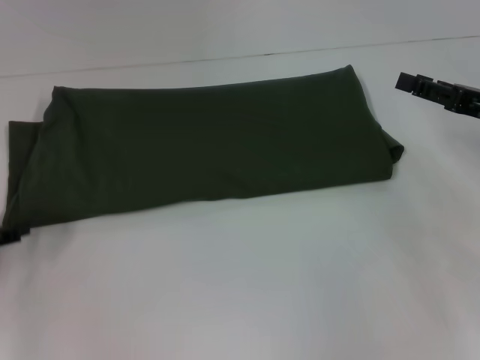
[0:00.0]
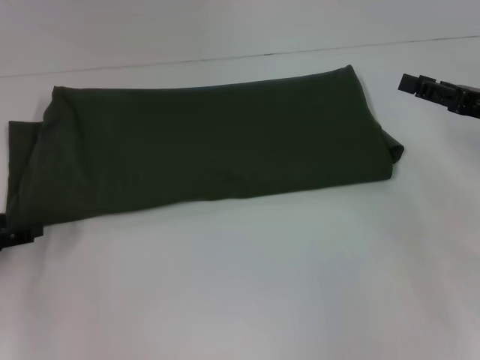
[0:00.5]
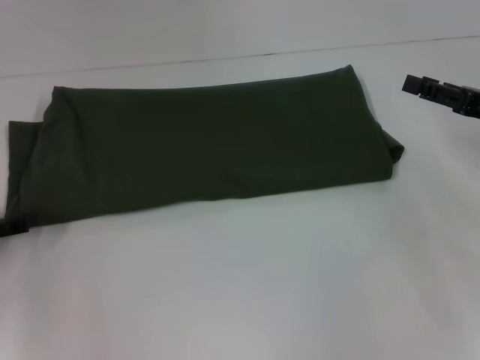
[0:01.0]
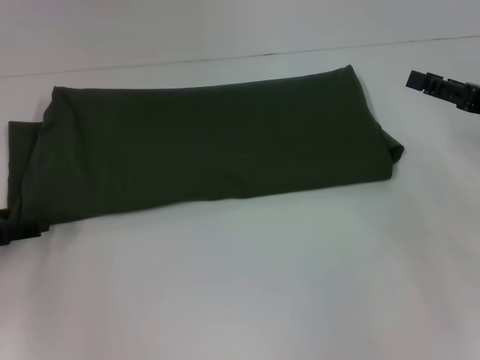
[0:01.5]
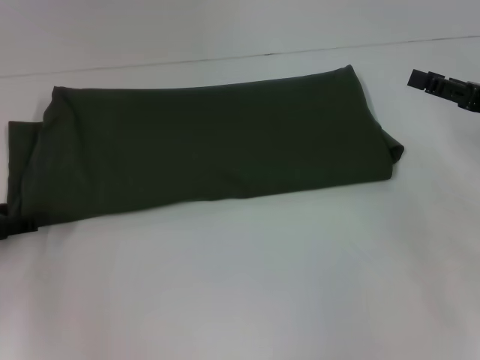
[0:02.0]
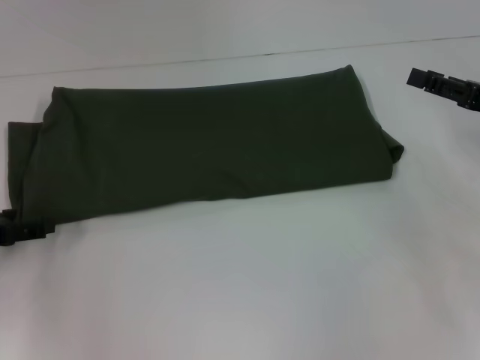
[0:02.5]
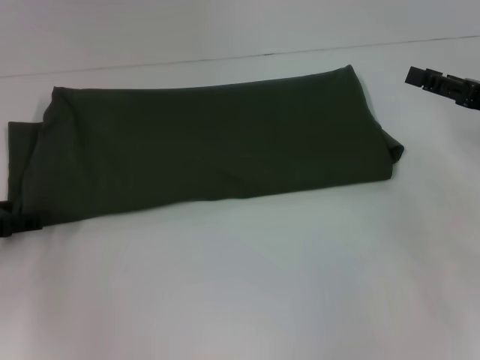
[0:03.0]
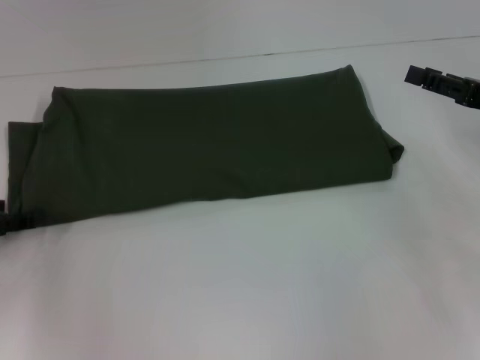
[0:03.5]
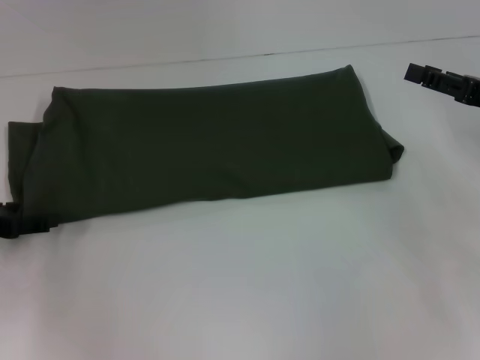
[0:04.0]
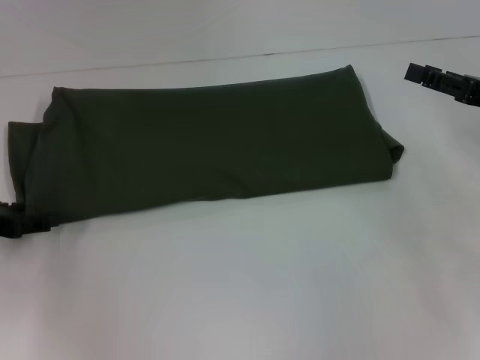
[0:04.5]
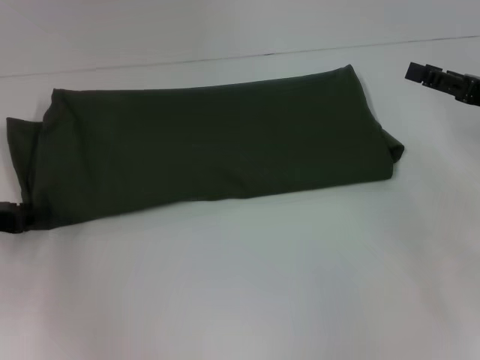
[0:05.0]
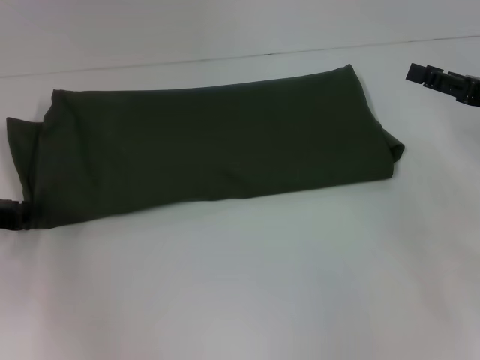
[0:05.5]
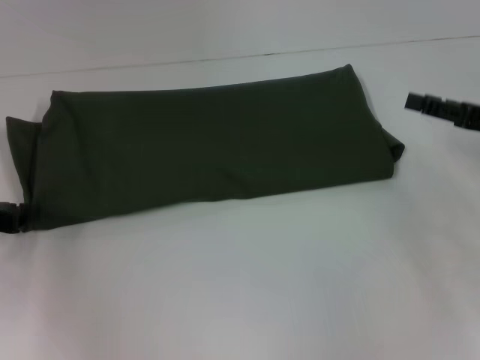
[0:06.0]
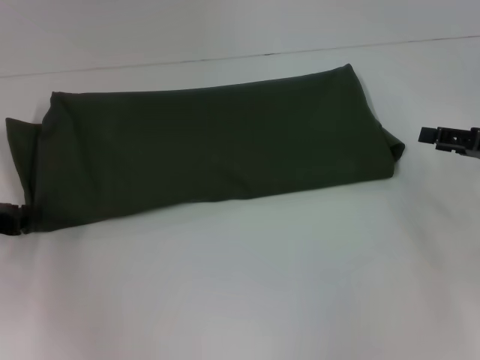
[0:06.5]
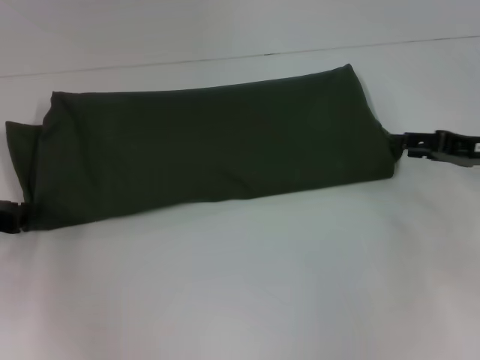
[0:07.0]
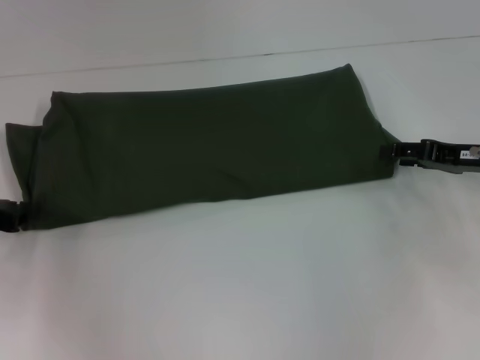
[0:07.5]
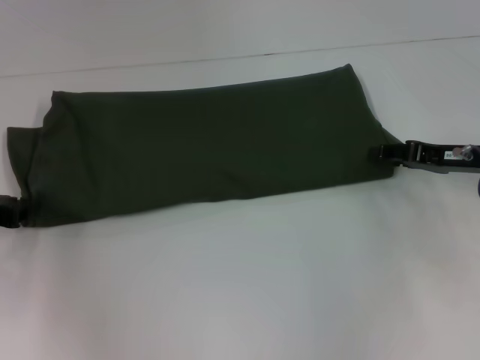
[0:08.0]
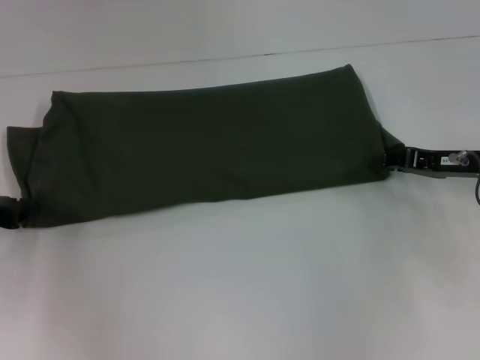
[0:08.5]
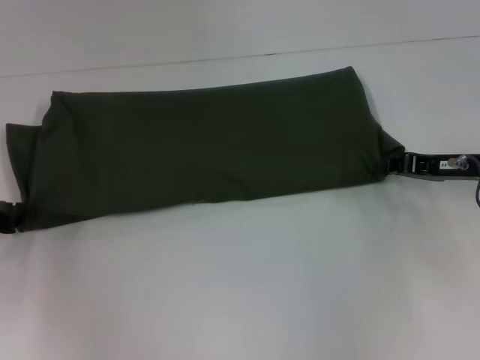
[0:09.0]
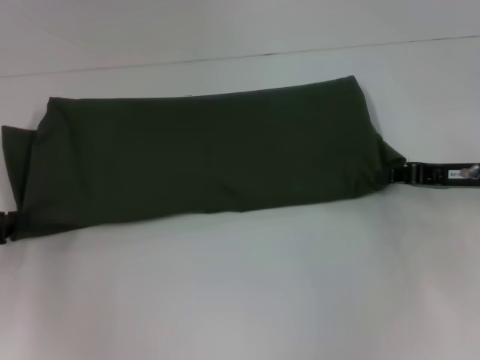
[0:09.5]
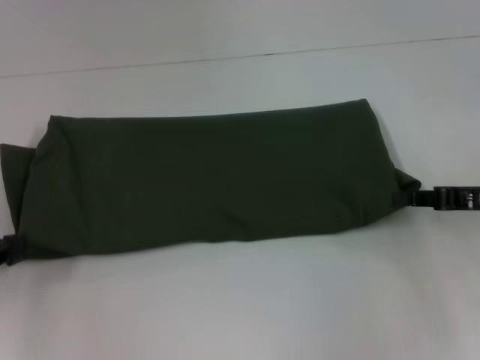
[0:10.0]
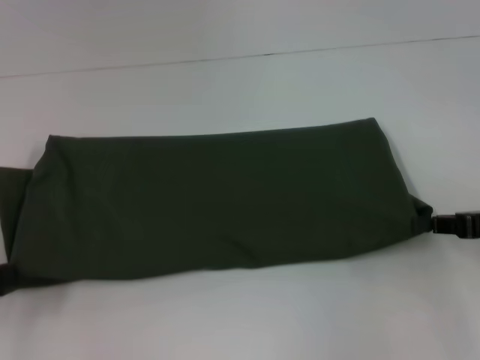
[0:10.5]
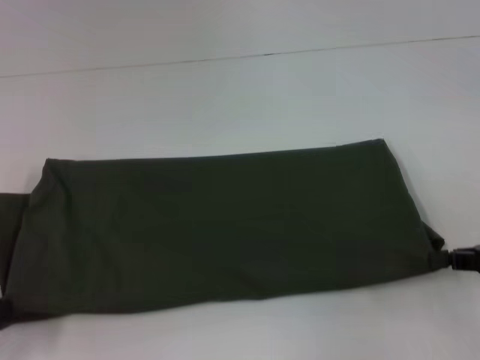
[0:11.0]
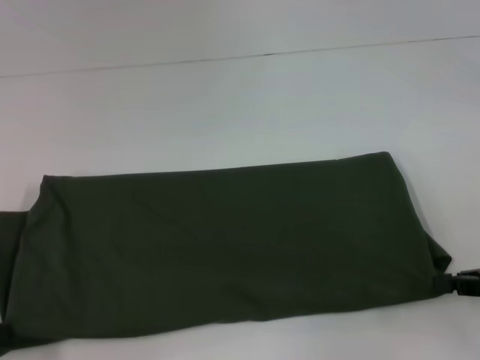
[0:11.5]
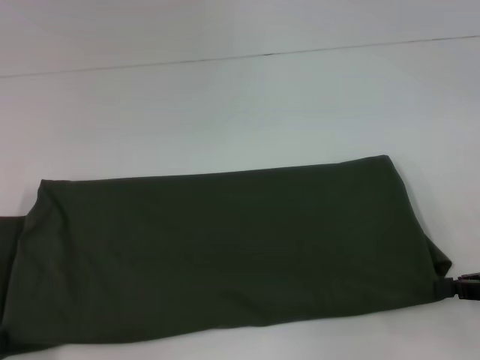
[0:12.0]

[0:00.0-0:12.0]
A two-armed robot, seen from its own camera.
0:00.0 to 0:02.0: The grippers stay close to where they were, moving slightly.
0:02.0 to 0:04.0: Neither gripper changes place.
0:04.0 to 0:06.0: The left gripper closes.
0:06.0 to 0:08.0: The right gripper ends up roughly 5 cm from where it was.
0:08.0 to 0:10.0: Both grippers move backward, approximately 5 cm. The right gripper closes.
0:10.0 to 0:12.0: The grippers both shift backward by roughly 10 cm.

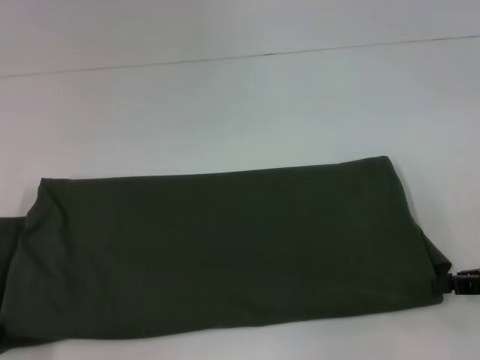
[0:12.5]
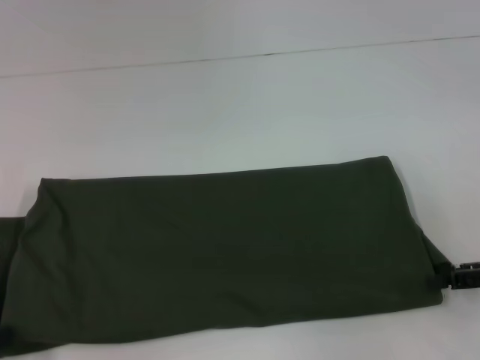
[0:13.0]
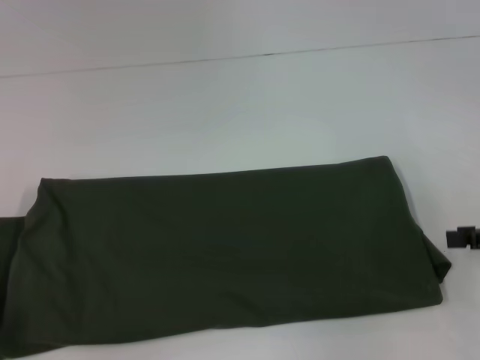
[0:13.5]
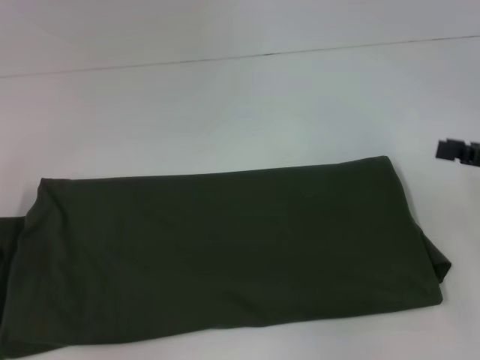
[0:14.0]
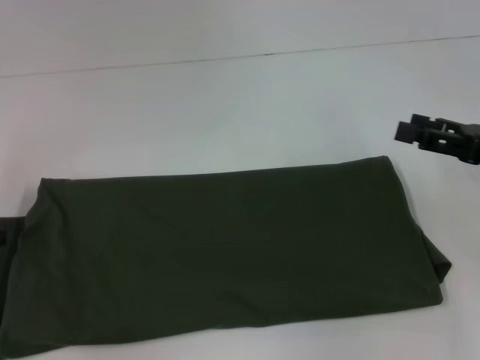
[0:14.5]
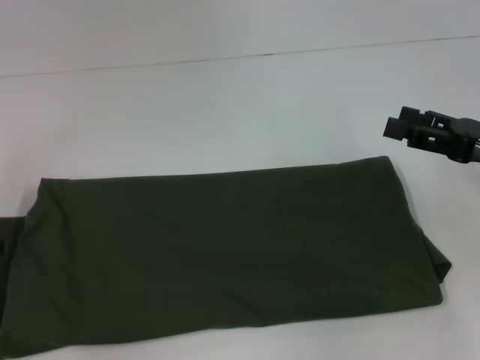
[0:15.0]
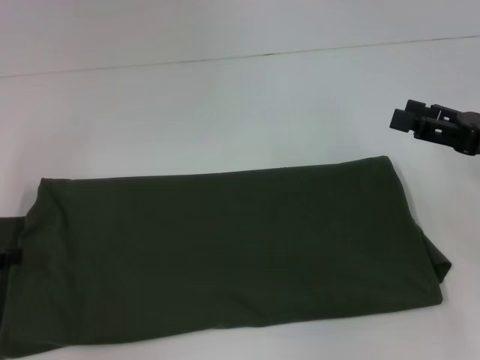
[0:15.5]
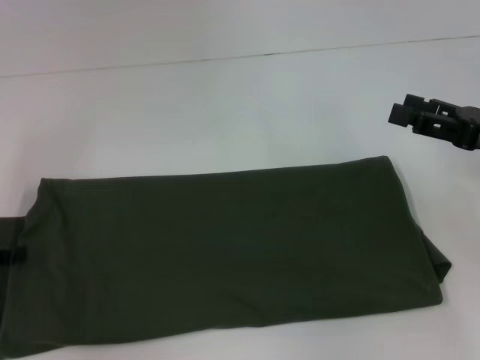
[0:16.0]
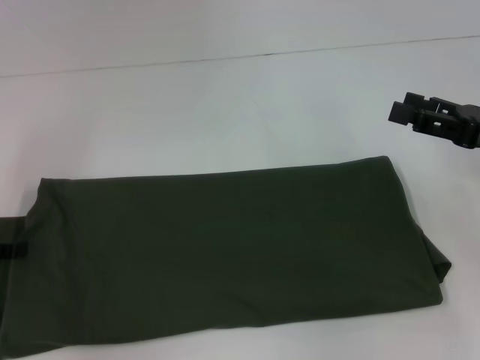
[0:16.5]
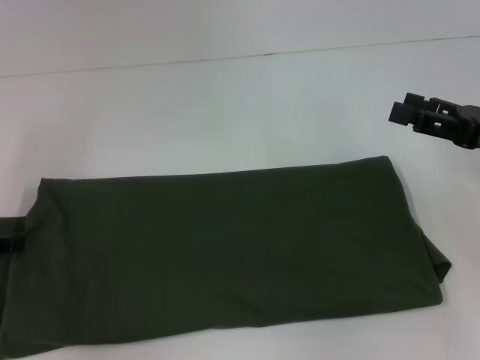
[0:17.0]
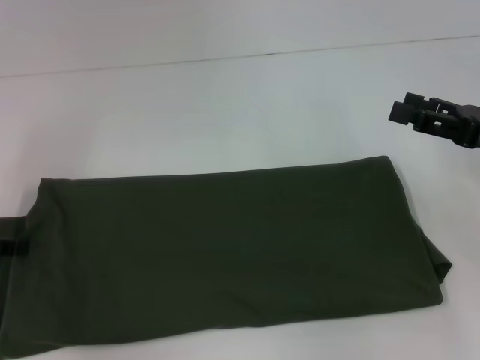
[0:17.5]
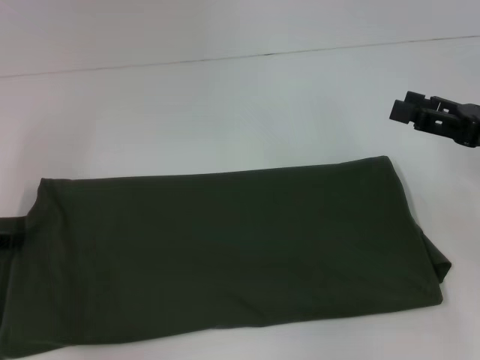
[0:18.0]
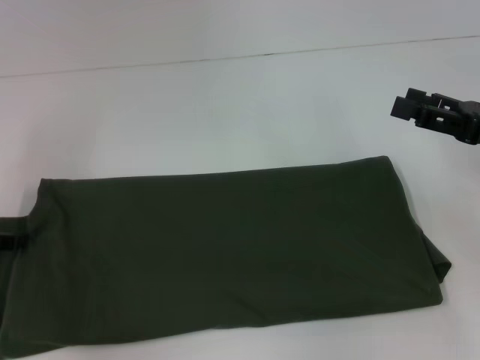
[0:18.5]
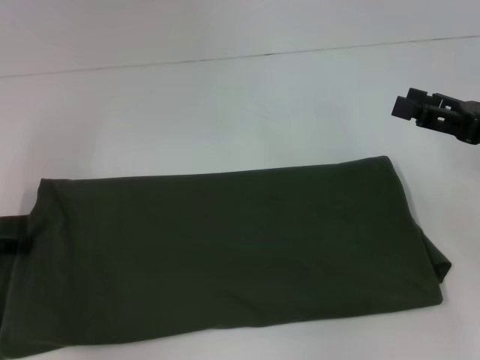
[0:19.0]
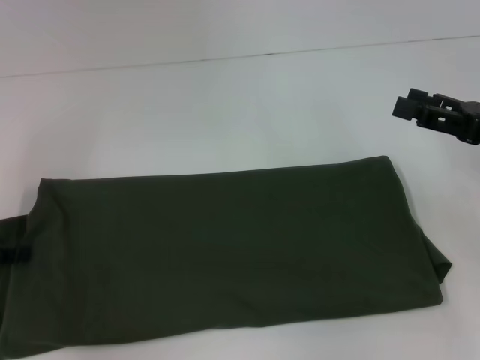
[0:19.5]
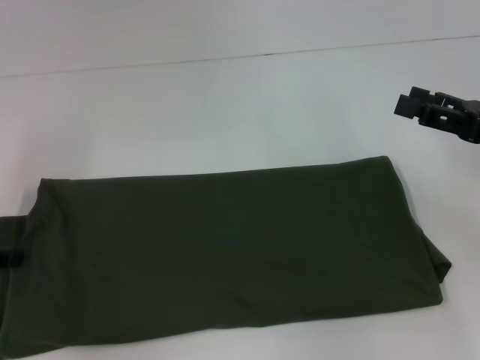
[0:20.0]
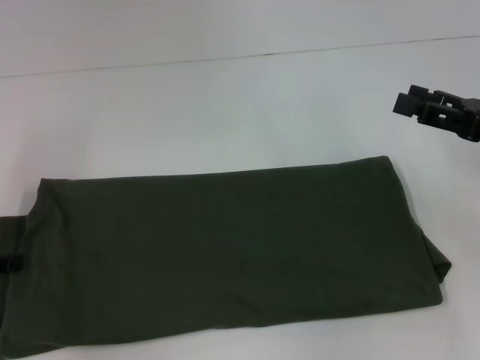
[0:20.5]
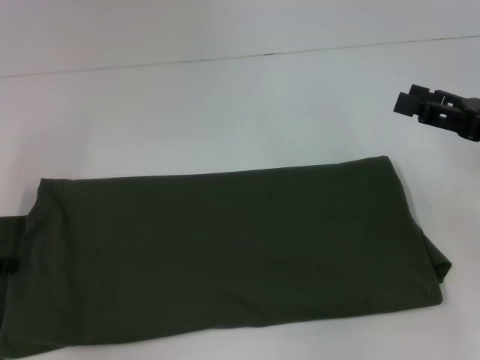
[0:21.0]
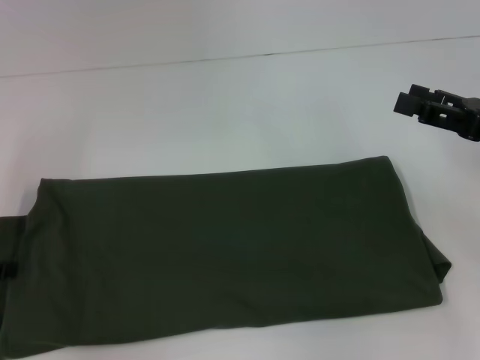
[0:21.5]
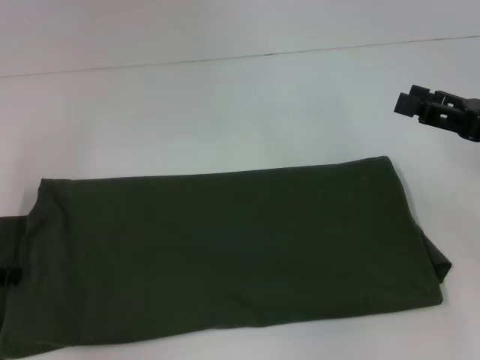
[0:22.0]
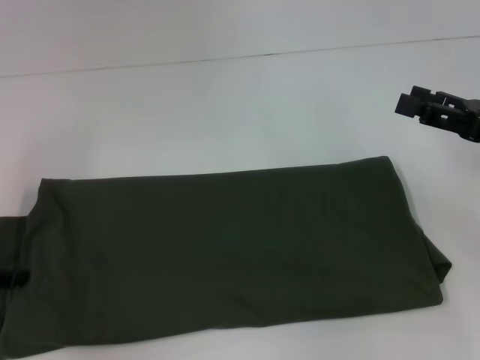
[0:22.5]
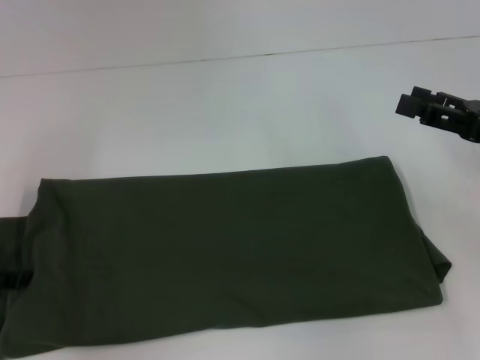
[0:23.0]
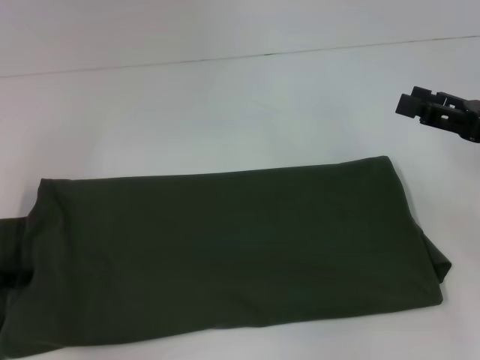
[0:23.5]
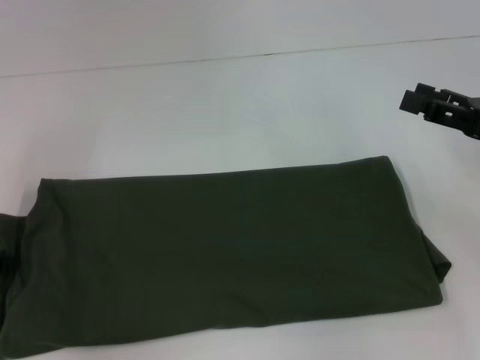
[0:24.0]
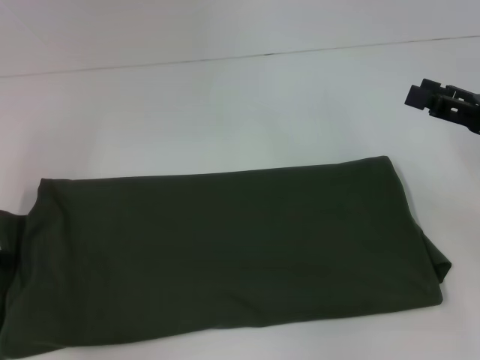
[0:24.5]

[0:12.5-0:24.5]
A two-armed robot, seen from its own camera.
0:12.5 to 0:14.5: The right gripper ends up some 5 cm from where it was, and opens; the left gripper heads forward, covering roughly 5 cm, and opens.
0:14.5 to 0:16.5: The grippers make only small movements.
0:16.5 to 0:18.5: Both grippers stay put.
0:18.5 to 0:20.5: There are only small adjustments of the grippers.
0:20.5 to 0:22.5: The two grippers keep their place.

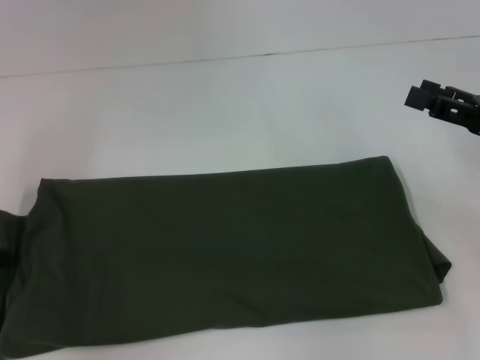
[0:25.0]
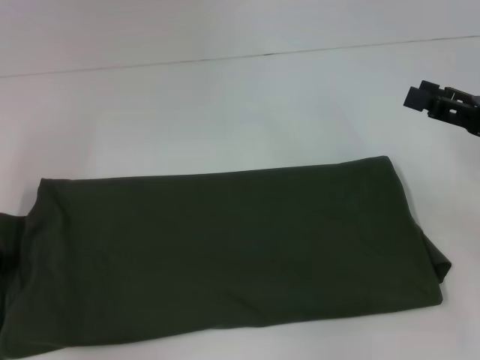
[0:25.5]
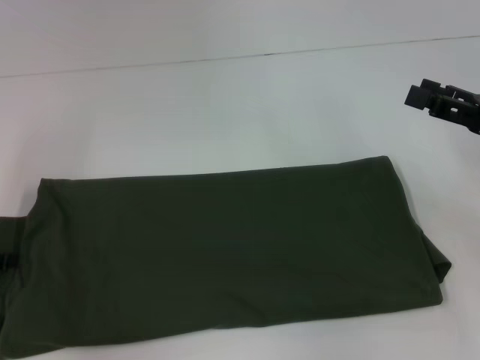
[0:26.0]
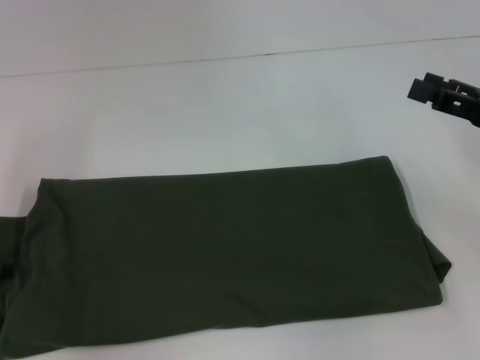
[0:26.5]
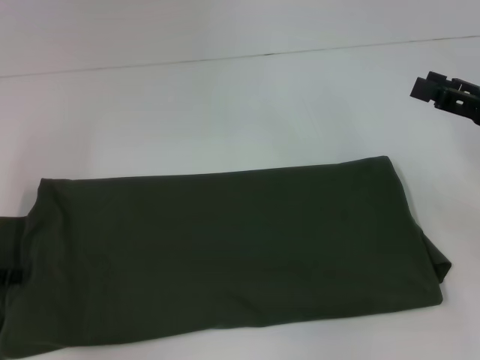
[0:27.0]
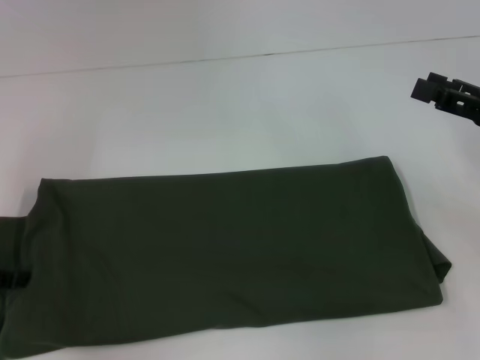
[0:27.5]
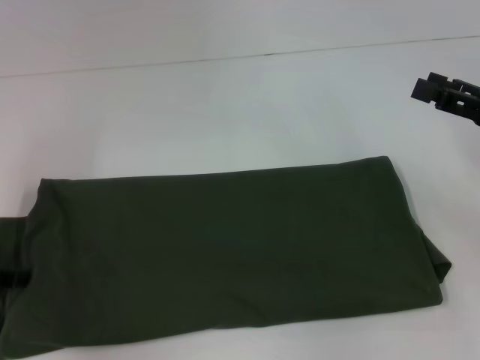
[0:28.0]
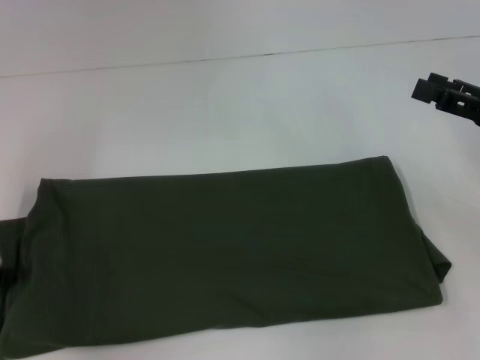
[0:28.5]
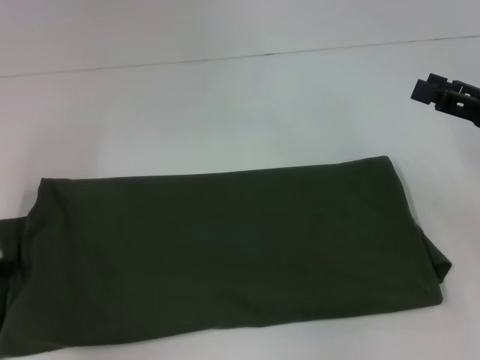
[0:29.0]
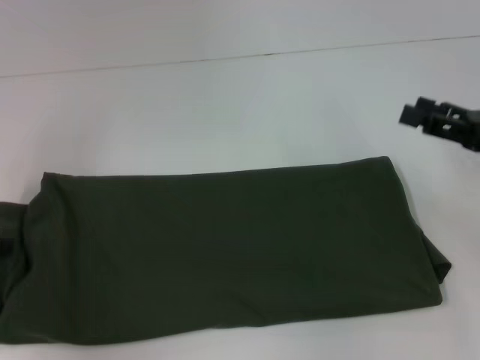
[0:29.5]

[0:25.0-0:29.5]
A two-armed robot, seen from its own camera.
0:27.0 to 0:29.5: The left gripper closes.
